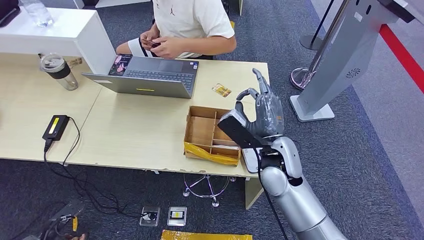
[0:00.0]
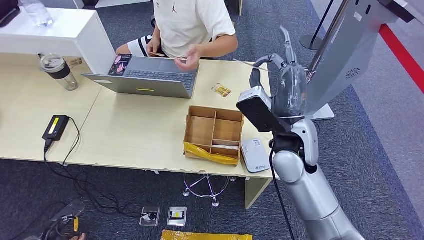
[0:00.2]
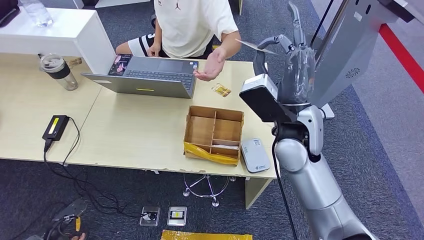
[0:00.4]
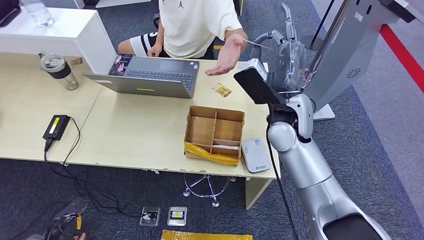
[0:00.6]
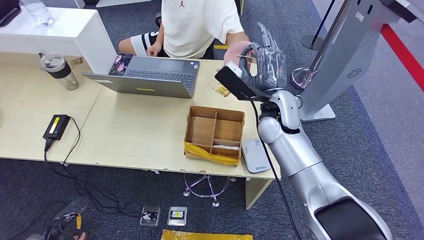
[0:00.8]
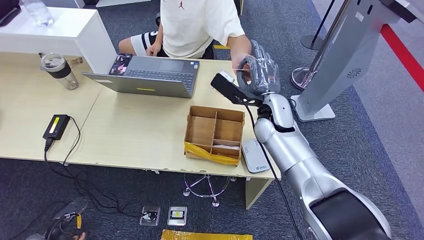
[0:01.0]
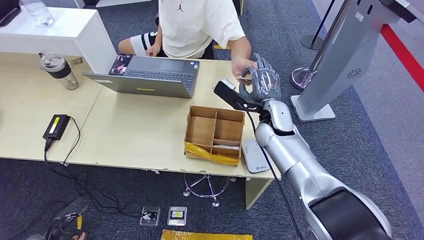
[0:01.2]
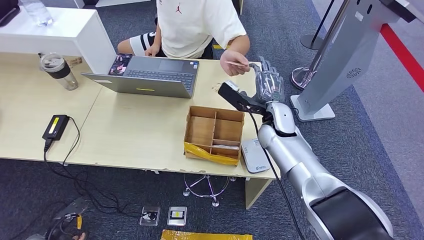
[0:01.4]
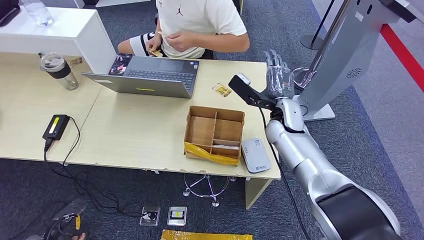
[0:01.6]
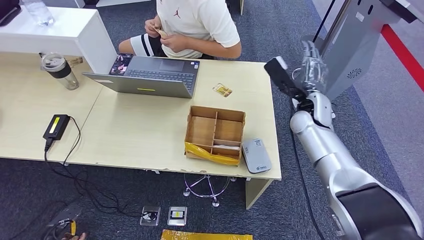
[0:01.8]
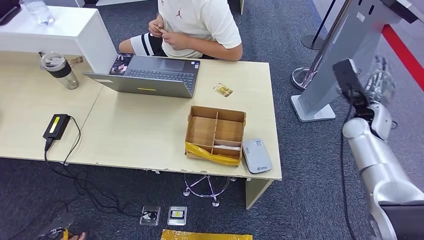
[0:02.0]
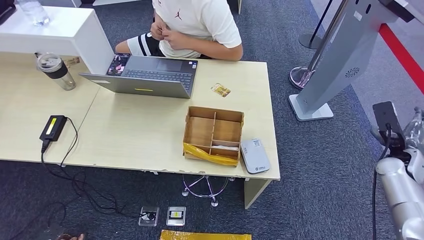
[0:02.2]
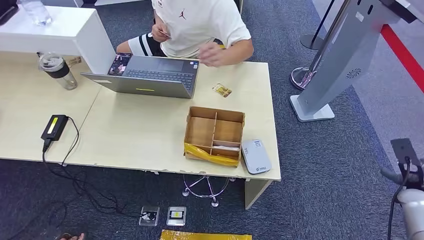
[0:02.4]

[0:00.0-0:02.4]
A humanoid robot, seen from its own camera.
Step, 0:01.0 to 0:02.2: Hand the room key to the person.
0:00.0 to 0:01.2: The right hand moves forward, about 10 cm, and moves approximately 10 cm upward and comes back.
0:01.2 to 0:02.4: The right hand moves to the right and backward, approximately 40 cm. Meanwhile the left hand shifts approximately 10 cm backward.
